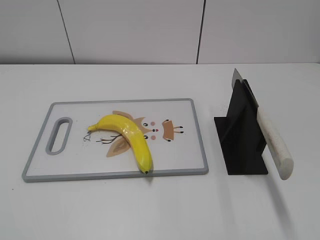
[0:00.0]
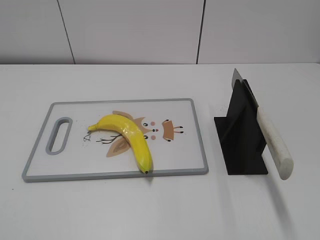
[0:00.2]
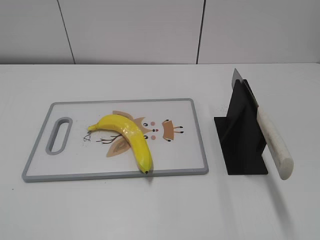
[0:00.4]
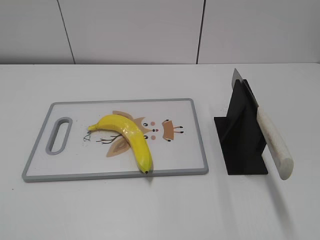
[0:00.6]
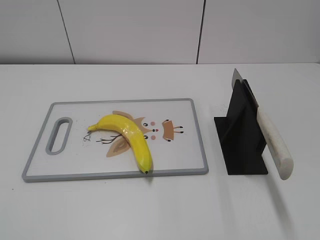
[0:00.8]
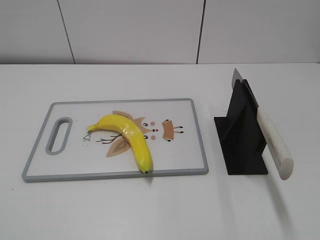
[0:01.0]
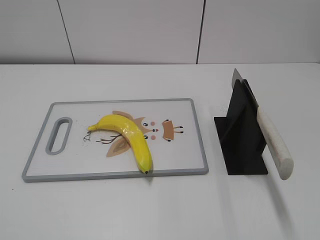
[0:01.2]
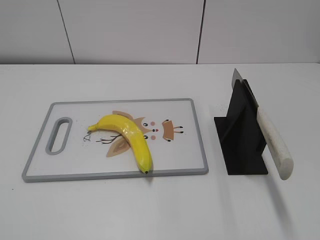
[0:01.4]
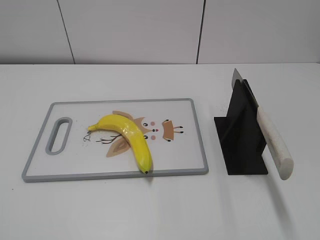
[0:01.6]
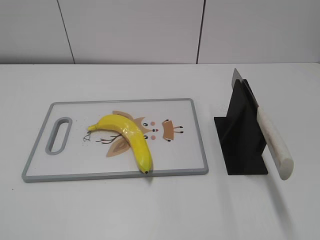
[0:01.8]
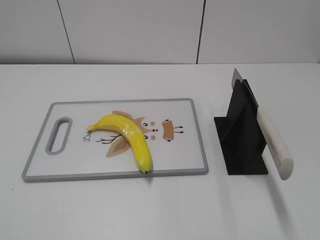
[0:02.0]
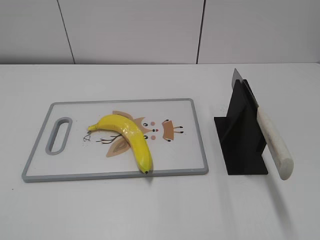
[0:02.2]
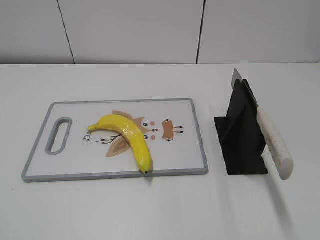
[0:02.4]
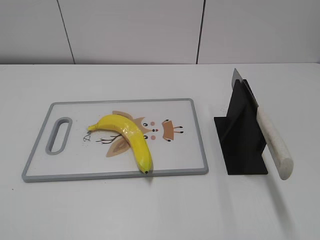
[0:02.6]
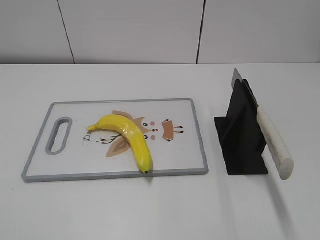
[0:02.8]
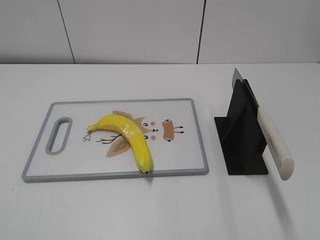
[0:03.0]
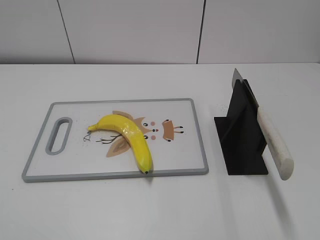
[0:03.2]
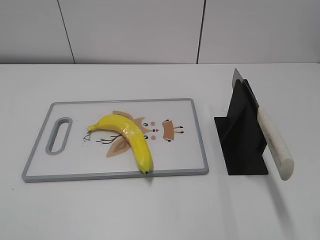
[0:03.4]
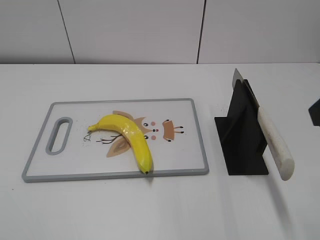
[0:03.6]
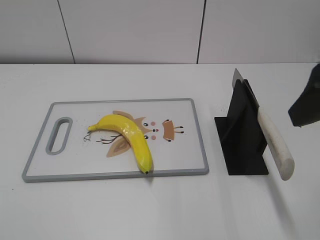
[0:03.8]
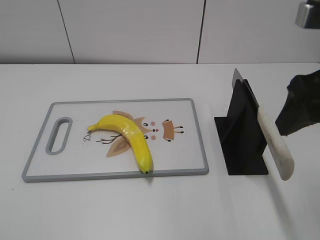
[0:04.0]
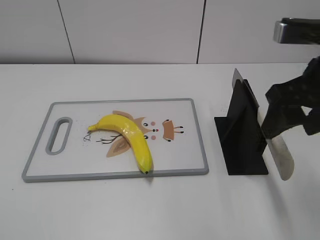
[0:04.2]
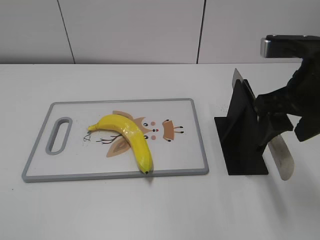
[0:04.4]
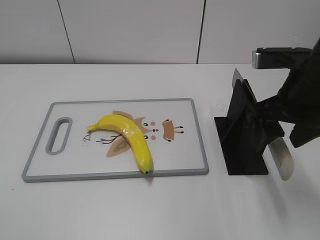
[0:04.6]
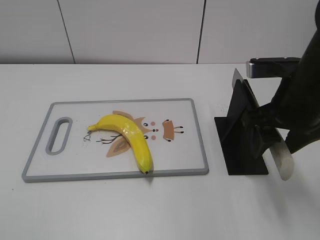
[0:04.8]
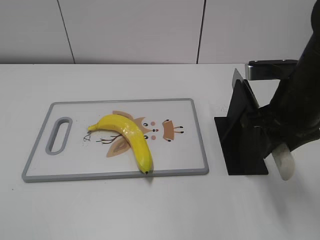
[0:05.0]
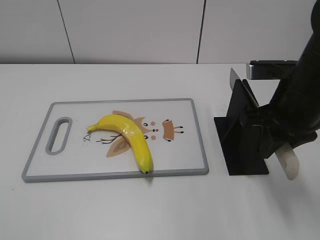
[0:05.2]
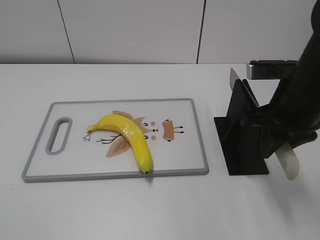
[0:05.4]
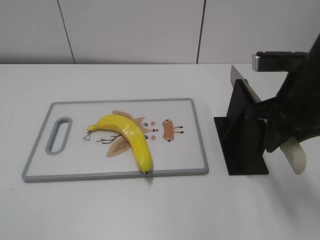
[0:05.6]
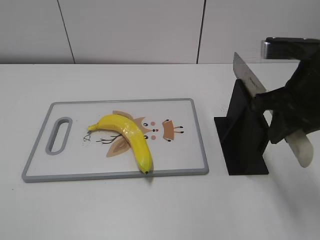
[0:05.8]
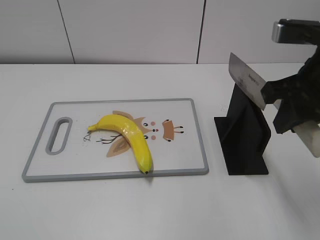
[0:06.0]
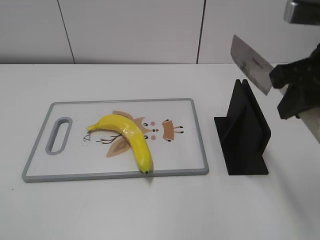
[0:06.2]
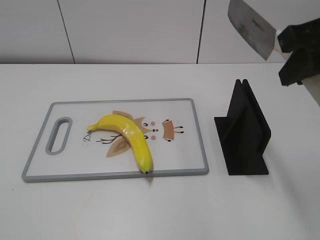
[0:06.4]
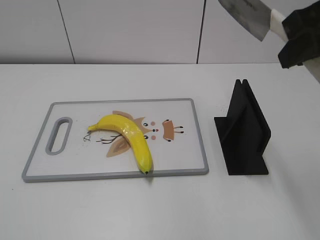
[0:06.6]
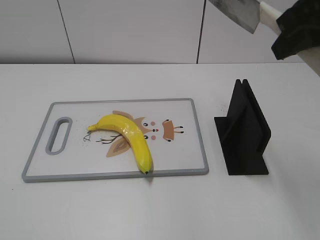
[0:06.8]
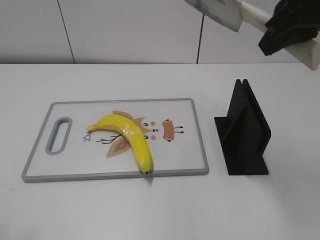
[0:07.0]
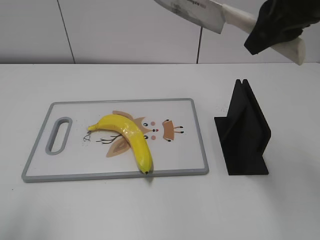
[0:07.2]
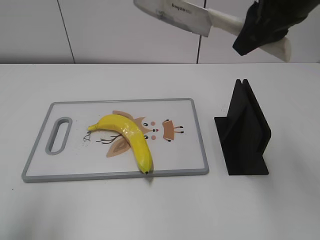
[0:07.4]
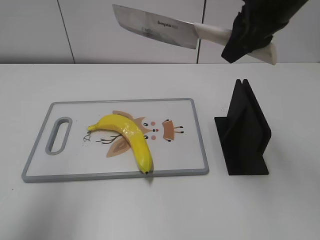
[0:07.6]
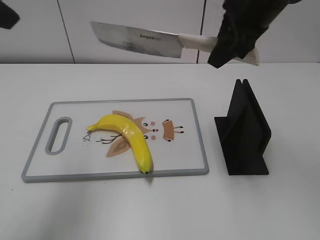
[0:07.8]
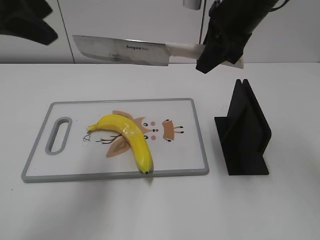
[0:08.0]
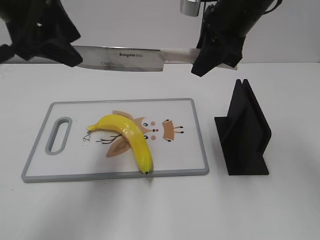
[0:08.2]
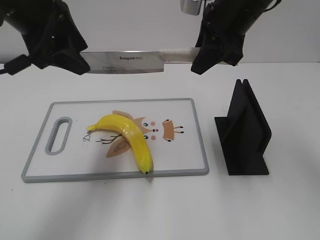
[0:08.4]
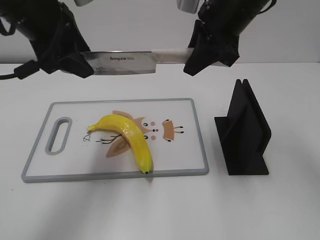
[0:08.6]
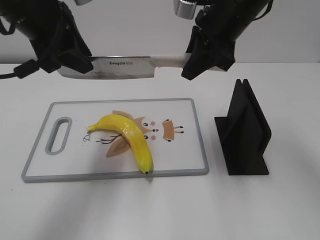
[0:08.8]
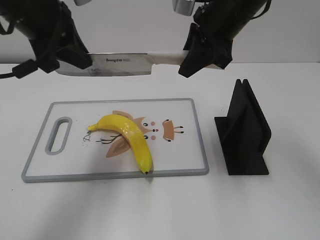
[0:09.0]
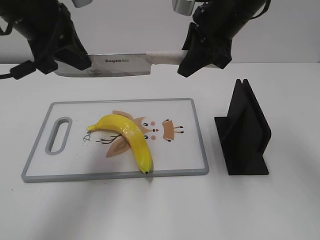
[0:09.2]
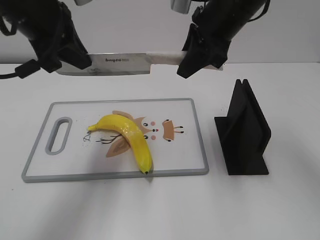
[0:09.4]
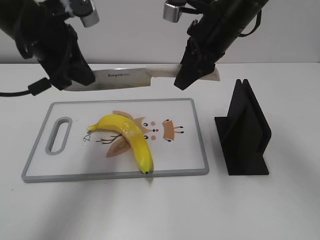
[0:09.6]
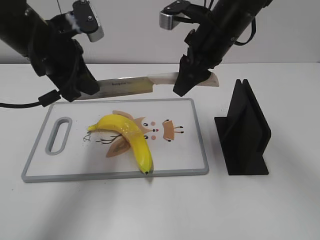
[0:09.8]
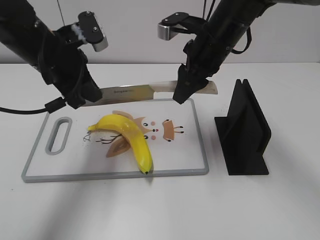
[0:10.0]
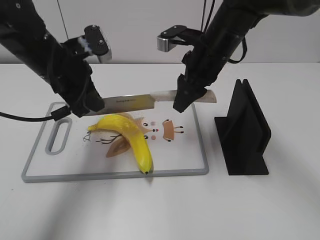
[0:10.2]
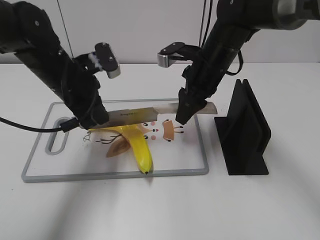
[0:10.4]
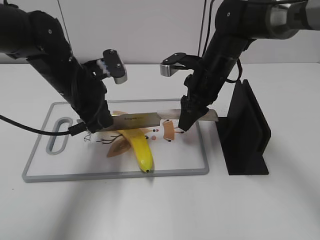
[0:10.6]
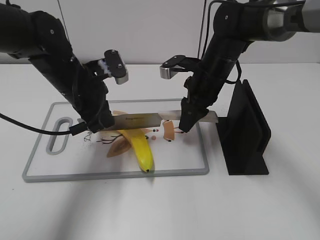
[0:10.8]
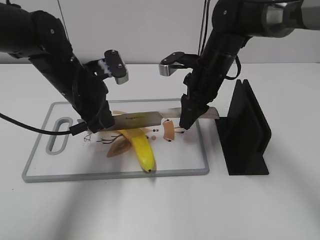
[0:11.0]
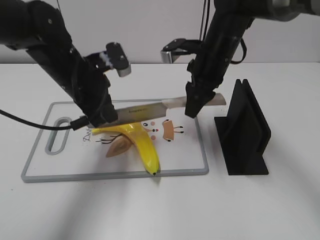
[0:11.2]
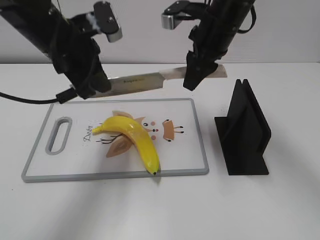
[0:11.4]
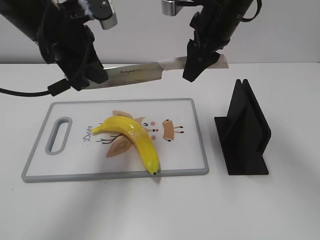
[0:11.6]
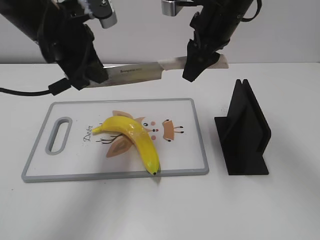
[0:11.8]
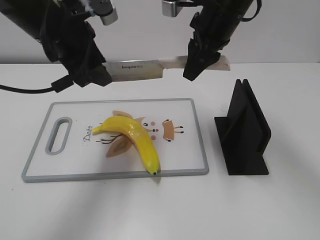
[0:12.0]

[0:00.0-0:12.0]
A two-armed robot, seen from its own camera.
Task of the whole recording: cut plastic banana.
Step, 0:00.0 to 0:06.2: Grab the knife handle with your right hand.
Step, 0:06.6 to 0:11.0: Lift the knife with your right hand.
0:03.0 to 0:04.4: The right gripper goes approximately 20 cm forward and to the left.
0:04.4 to 0:06.0: The right gripper closes.
0:06.0 to 0:07.6: The left gripper heads forward and upward, covering roughly 25 cm. Meanwhile the right gripper heads forward and upward, covering about 10 cm.
0:07.6 to 0:09.0: The right gripper moves roughly 10 cm, while the left gripper heads forward, to the right and downward, covering about 20 cm, and closes.
0:09.0 to 0:10.4: The two grippers go roughly 10 cm downward.
0:10.4 to 0:12.0: The grippers both shift upward by roughly 10 cm. The left gripper opens up.

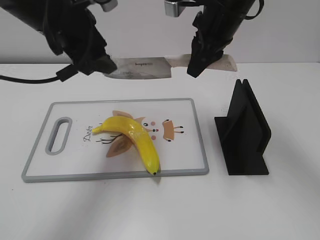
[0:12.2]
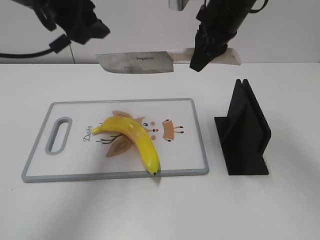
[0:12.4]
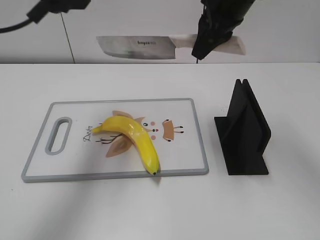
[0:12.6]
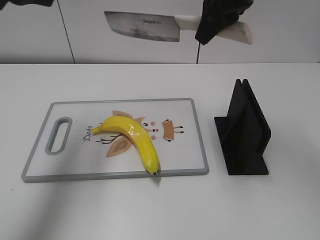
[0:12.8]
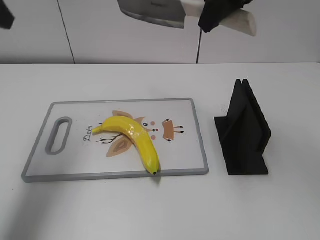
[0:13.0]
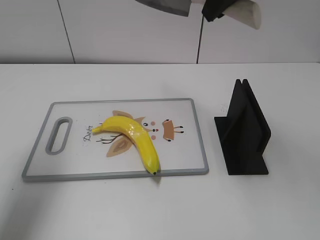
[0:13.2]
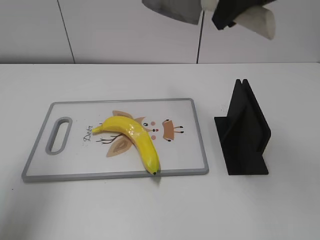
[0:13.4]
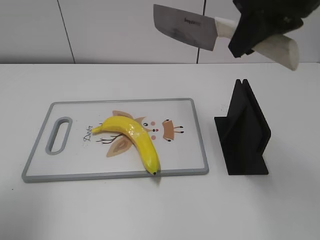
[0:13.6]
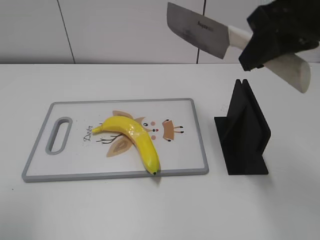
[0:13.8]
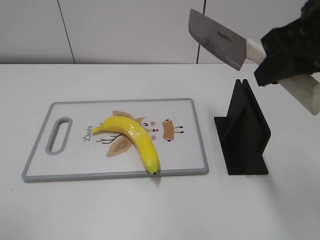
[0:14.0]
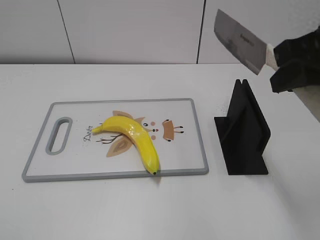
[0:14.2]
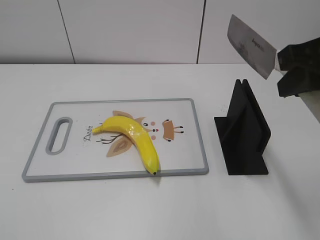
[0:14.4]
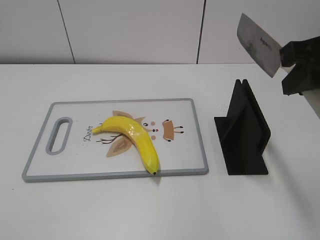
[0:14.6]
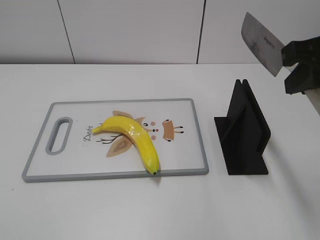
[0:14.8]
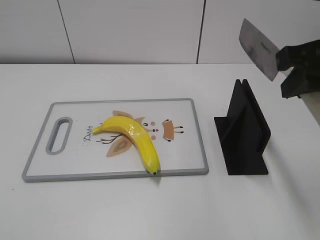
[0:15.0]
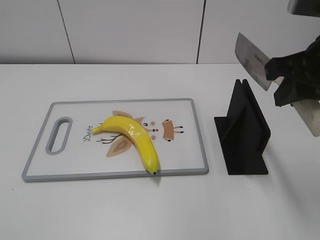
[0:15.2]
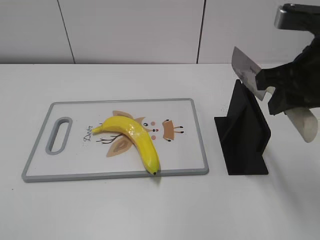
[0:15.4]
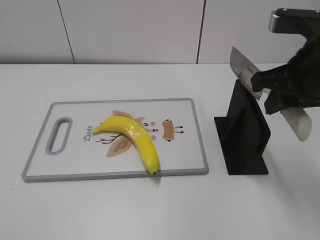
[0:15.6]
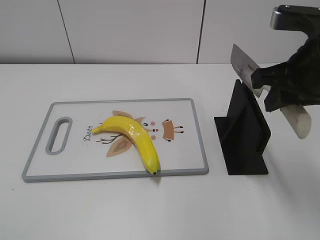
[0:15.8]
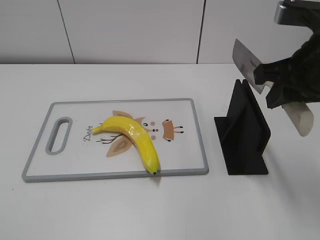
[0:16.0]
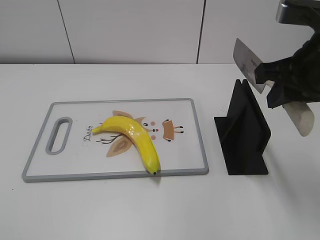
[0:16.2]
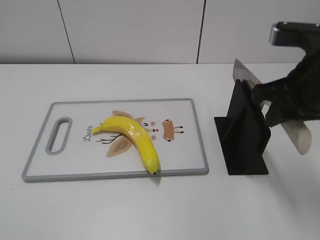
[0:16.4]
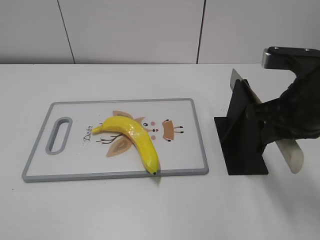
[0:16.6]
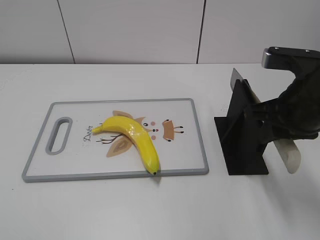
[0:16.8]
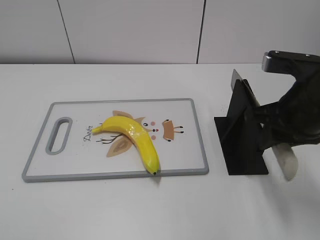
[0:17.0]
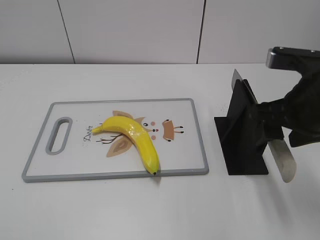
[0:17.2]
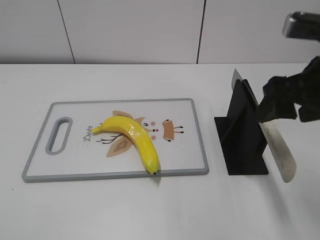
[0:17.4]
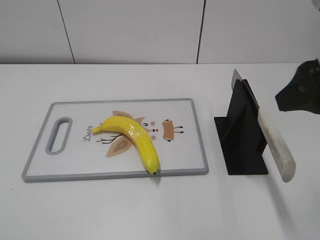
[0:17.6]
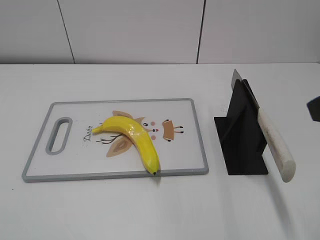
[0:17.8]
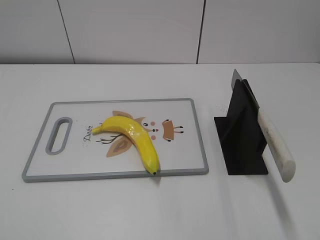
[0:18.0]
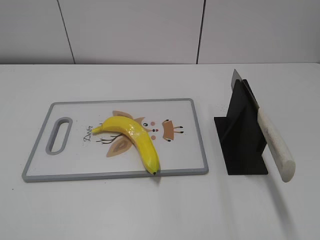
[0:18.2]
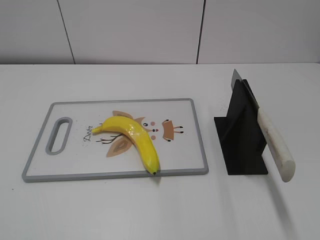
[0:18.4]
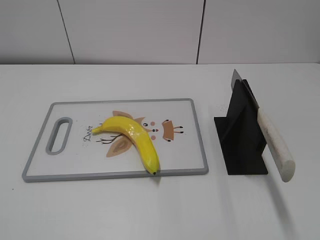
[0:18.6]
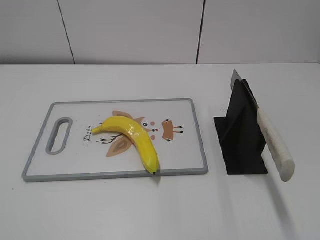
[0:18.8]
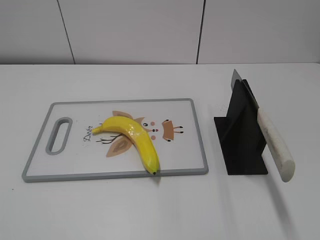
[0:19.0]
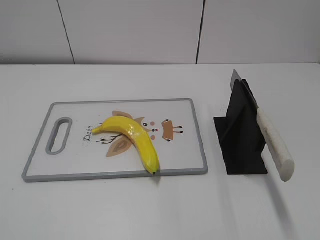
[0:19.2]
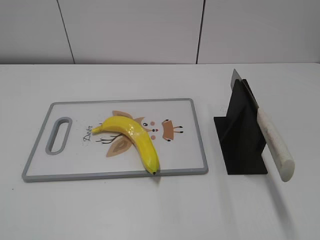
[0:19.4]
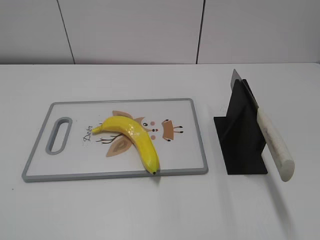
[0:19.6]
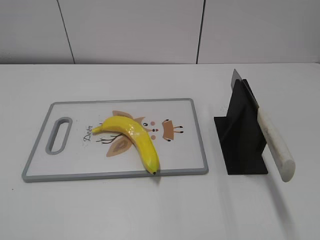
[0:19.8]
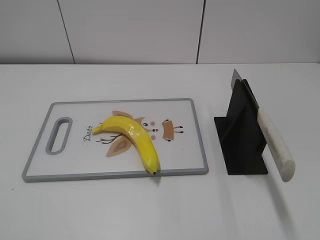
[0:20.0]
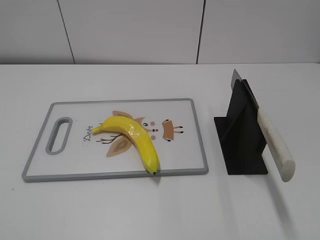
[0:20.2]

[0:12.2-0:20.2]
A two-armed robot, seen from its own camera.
Task of the whole recording: cut plastic banana.
Step, 0:13.4 to 0:14.4: Lift the knife with your right hand.
Step, 0:14.6 to 0:20.2: Place the knife on the storage rack with your right hand.
0:12.2 to 0:13.8: The left gripper travels backward and to the left by approximately 25 cm. Meanwhile the right gripper heads backward, upward and to the right, covering approximately 15 cm.
0:13.8 to 0:15.4: The left gripper goes approximately 15 cm backward. Meanwhile the right gripper shifts some 5 cm downward.
0:15.4 to 0:17.0: The right gripper goes some 5 cm downward.
0:17.0 to 0:18.6: The right gripper heads backward and to the right, covering roughly 25 cm, and opens its fingers.

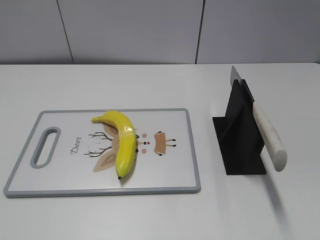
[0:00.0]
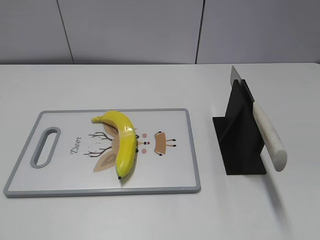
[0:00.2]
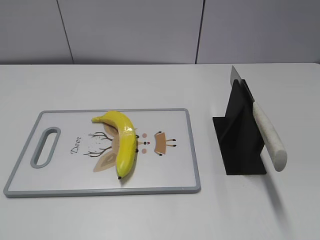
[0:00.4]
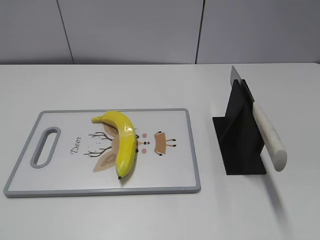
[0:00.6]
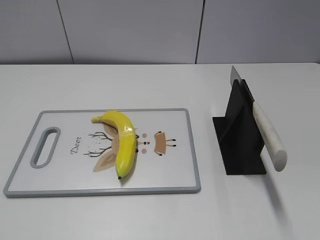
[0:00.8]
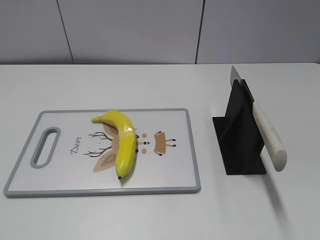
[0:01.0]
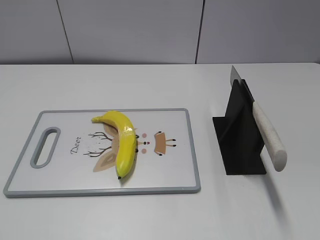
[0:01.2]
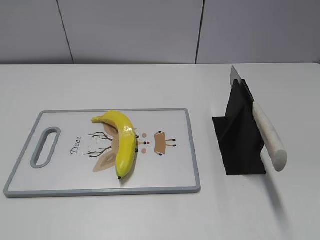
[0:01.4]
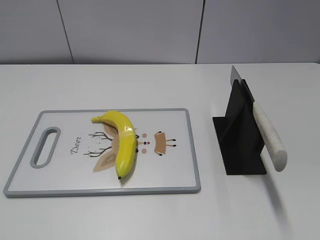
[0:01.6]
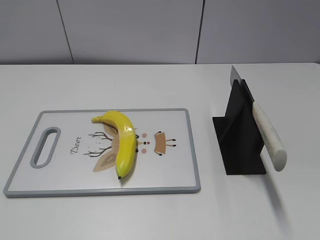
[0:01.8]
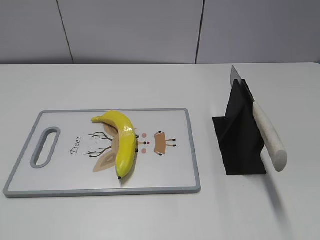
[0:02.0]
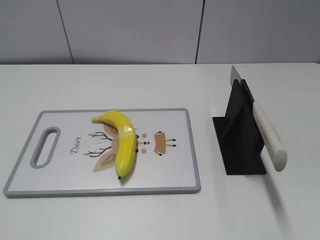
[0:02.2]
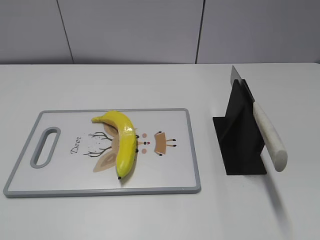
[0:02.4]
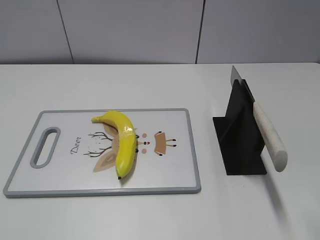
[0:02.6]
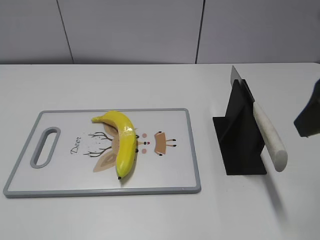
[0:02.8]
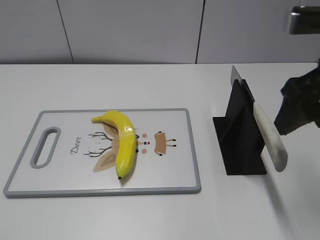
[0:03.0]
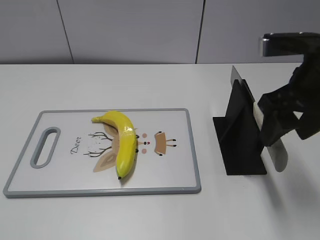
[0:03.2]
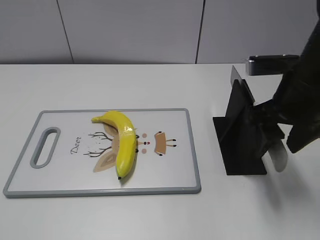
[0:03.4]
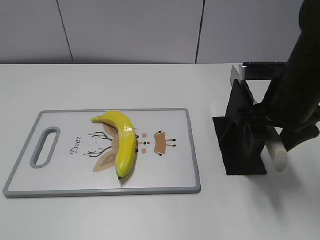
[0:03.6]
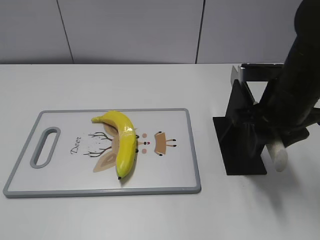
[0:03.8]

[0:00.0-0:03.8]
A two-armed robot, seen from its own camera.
Task of the whole recording: cut plastic banana.
0:02.6 to 0:03.8: The right gripper is displaced downward, forward and to the left by approximately 20 cm.
